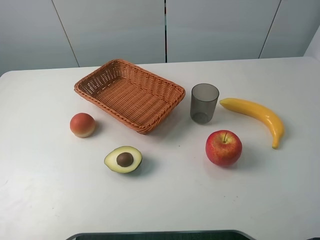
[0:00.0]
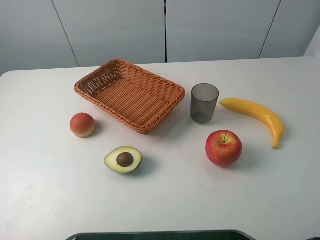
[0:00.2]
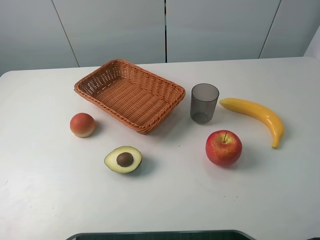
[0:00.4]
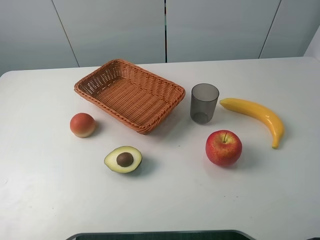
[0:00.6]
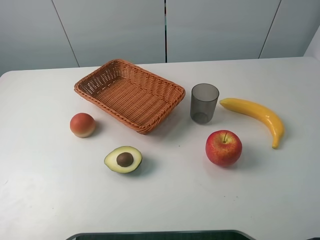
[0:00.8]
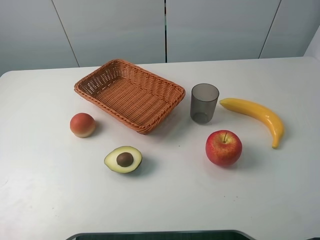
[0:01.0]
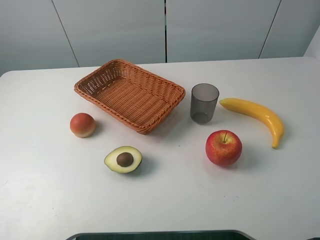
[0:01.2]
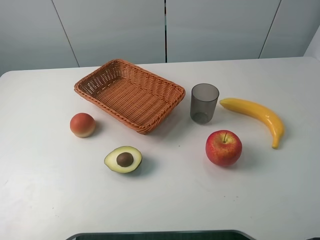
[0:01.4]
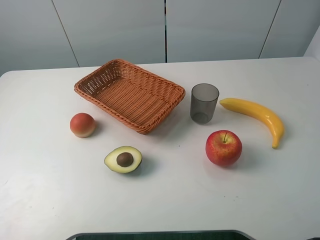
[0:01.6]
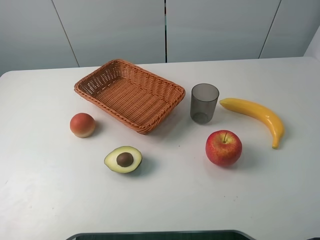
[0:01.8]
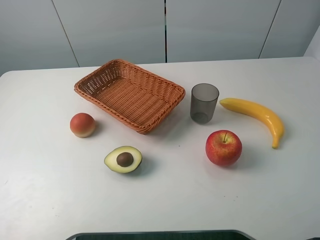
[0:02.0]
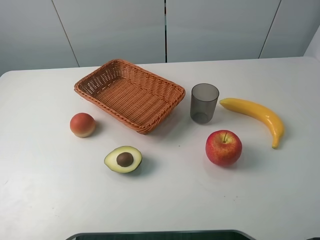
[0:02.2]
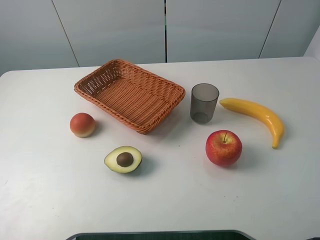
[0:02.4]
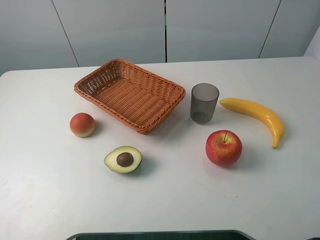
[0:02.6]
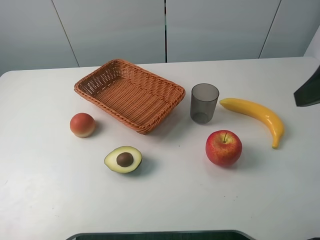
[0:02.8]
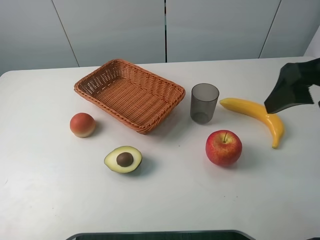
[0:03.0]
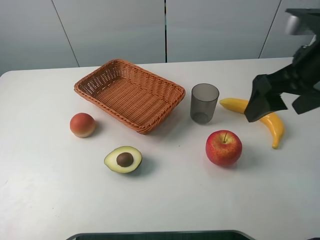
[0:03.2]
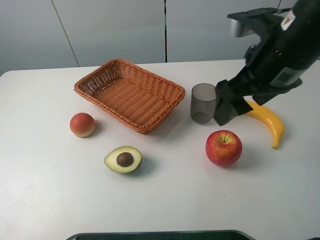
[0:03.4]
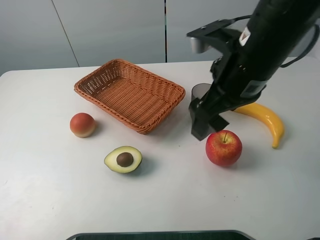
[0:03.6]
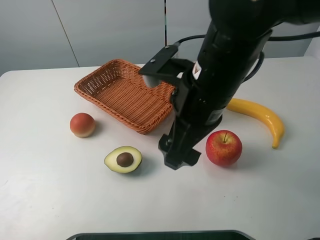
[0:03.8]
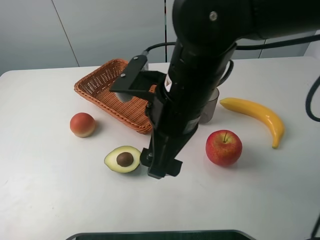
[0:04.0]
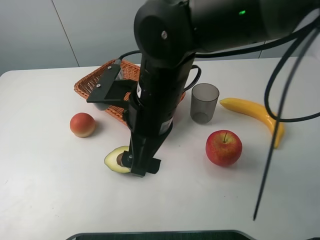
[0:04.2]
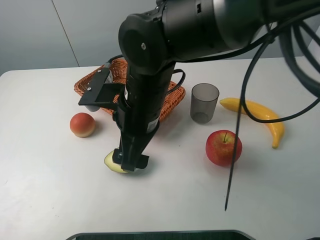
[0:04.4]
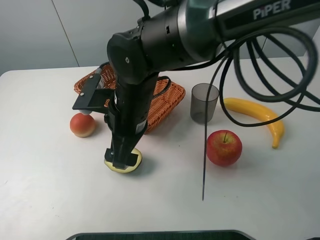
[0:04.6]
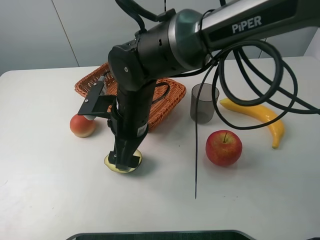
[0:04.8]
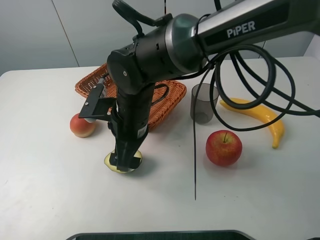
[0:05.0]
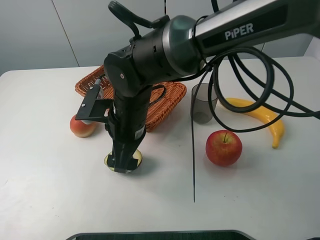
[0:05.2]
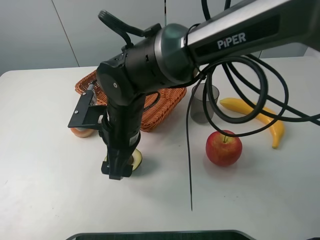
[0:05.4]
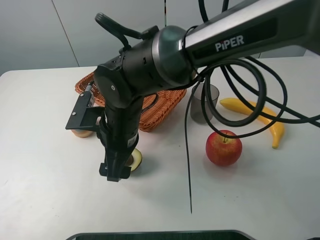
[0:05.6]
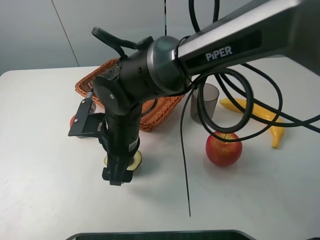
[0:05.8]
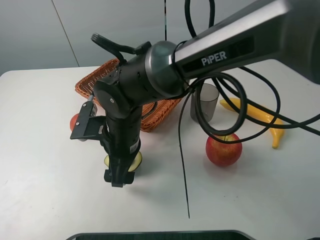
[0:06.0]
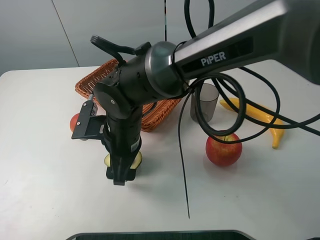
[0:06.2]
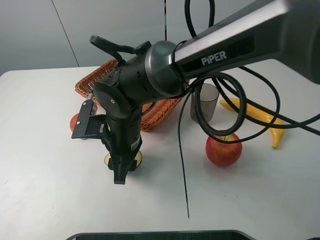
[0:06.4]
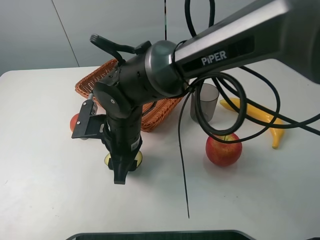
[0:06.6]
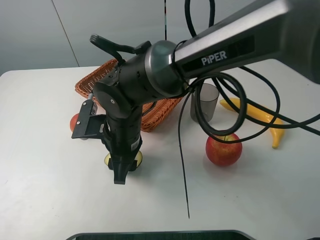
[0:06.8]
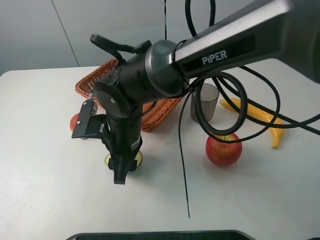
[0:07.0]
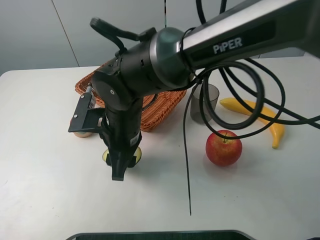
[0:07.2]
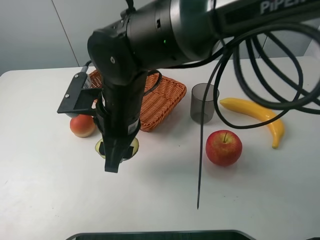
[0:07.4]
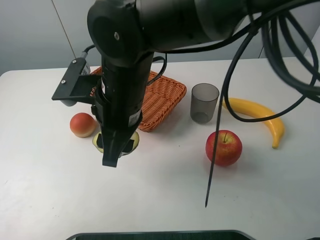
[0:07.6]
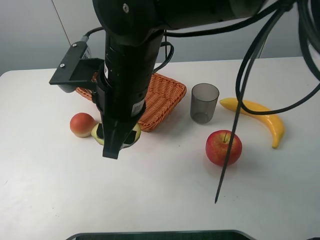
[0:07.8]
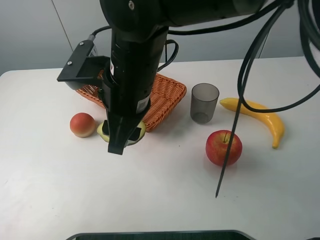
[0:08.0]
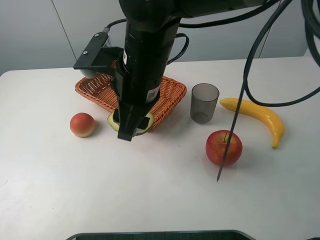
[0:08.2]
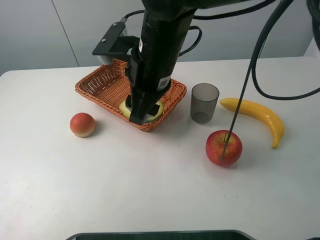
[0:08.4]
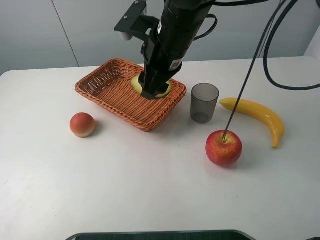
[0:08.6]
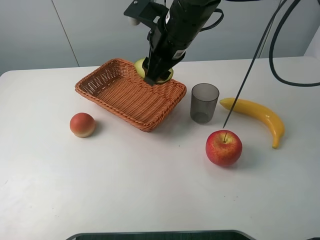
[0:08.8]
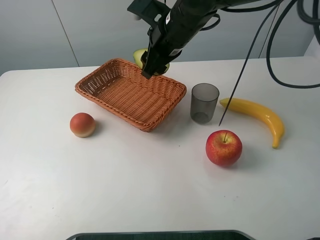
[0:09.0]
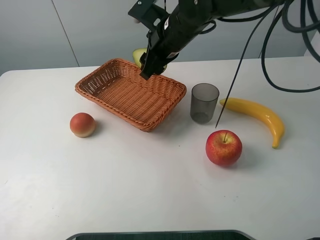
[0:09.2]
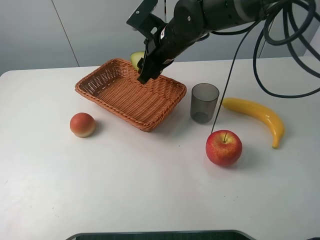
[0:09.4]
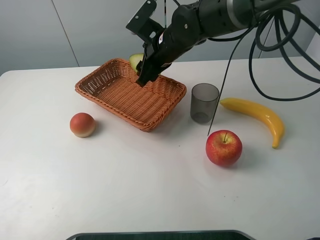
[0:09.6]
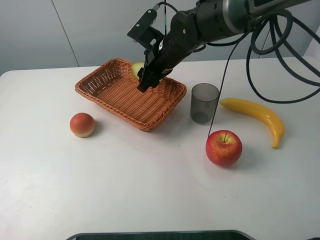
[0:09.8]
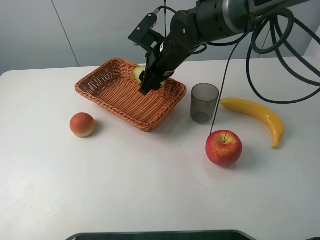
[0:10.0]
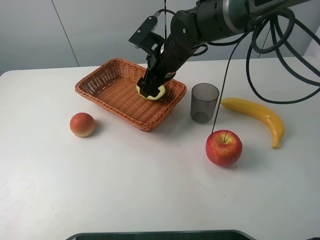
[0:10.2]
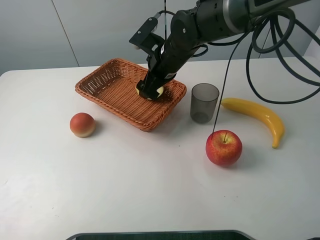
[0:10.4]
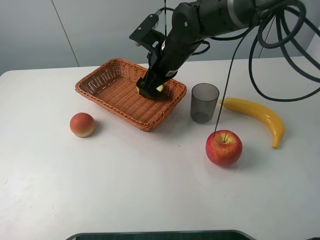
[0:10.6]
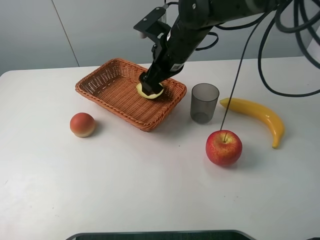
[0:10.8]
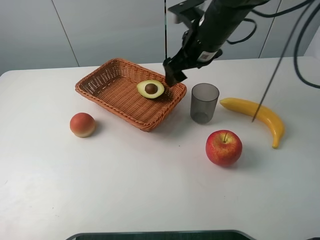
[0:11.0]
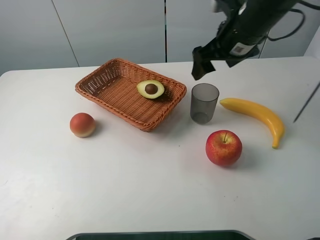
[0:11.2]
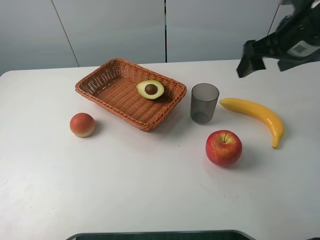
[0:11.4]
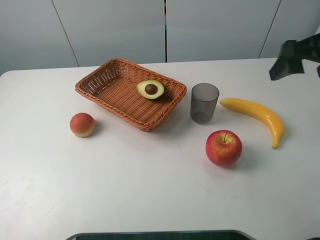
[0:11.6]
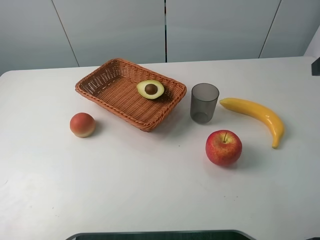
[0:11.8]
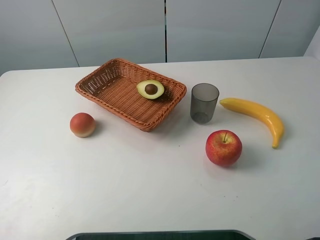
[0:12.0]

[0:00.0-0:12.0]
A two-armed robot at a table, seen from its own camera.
Task of the whole recording: randomly pick up an item from the table and put it in the basket.
Step, 0.0 to 6.6 s: Grasp the avocado with the right gripper.
Step, 6.8 to 10.8 s: Place the avocado into the basket with the right gripper.
0.0 to 1.6 s: Neither gripper changes place.
1.6 to 3.0 s: The right gripper heads forward, covering approximately 20 cm.
3.0 to 4.4 s: The right gripper goes about 25 cm to the left.
4.4 to 6.0 s: The right gripper travels downward by approximately 5 cm.
6.0 to 7.6 s: The right gripper is displaced upward by roughly 10 cm, and closes.
7.6 to 9.0 s: The right gripper shifts some 15 cm forward and to the right.
9.0 to 10.4 s: The right gripper heads downward, covering roughly 5 cm, and opens its fingers.
10.4 to 12.0 s: The right gripper travels to the right, backward and upward by approximately 40 cm.

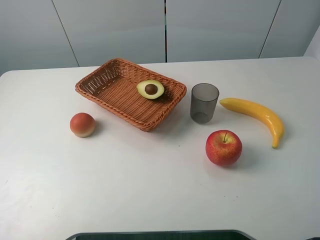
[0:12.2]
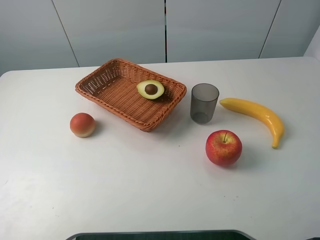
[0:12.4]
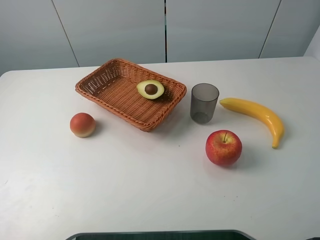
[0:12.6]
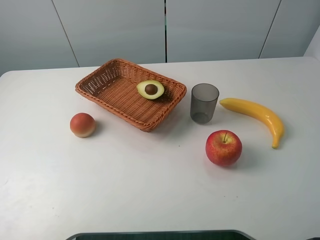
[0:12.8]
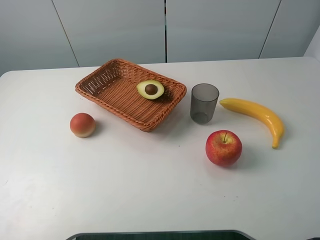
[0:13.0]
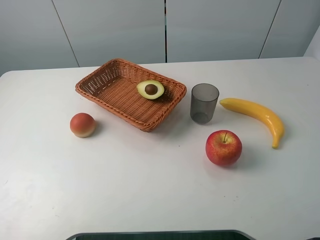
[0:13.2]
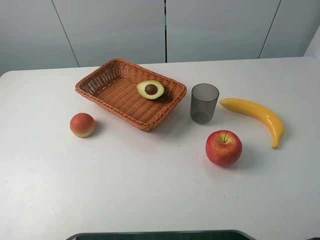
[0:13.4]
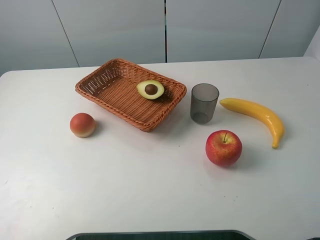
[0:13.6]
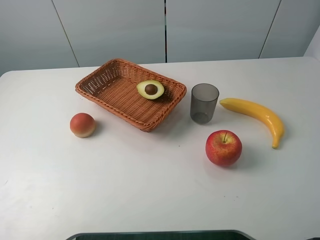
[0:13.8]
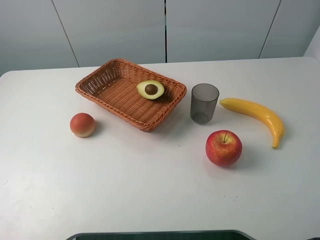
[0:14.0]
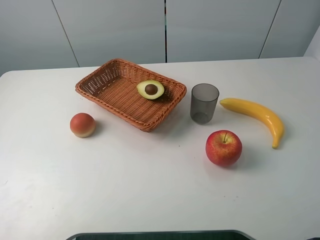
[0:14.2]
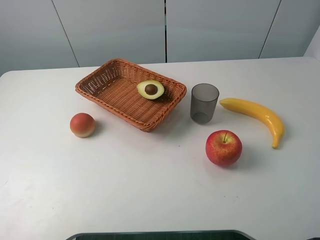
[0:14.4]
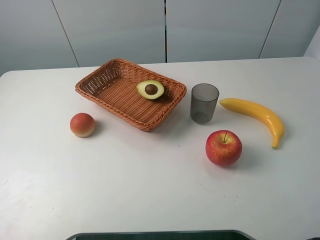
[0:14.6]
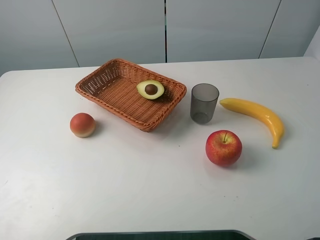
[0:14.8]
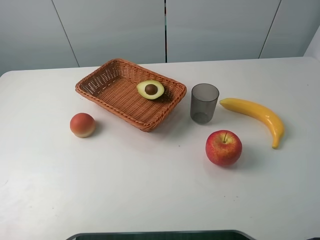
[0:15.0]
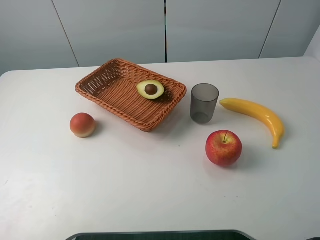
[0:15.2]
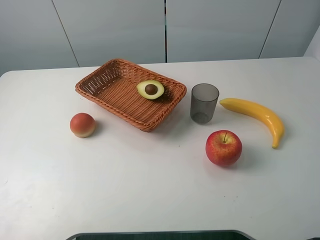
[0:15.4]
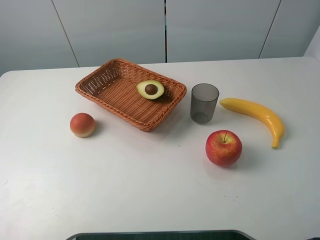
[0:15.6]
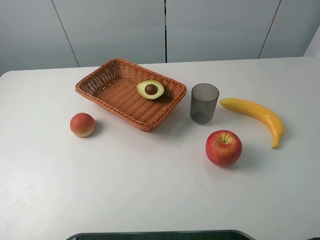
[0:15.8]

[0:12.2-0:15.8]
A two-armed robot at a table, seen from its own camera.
Task of the whole recording: randomly pick up an item from the table and put it in the basket.
14.0 to 15.8 s: Neither gripper changes place.

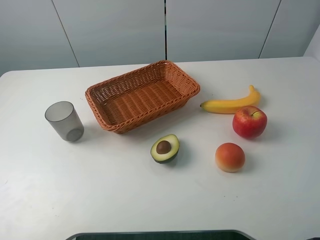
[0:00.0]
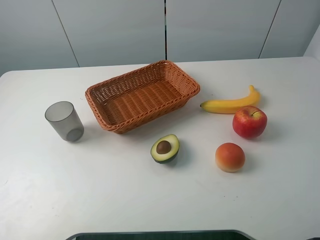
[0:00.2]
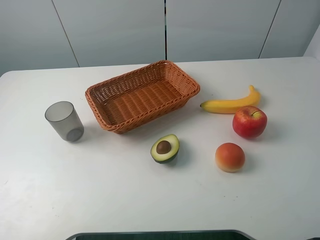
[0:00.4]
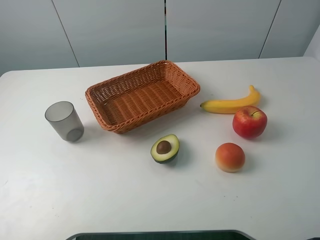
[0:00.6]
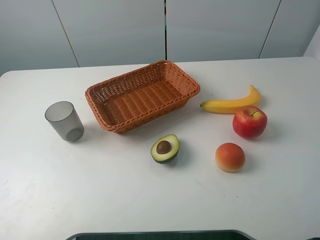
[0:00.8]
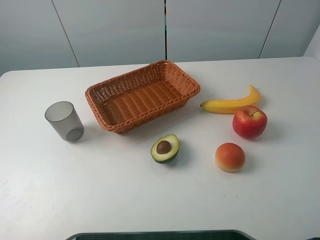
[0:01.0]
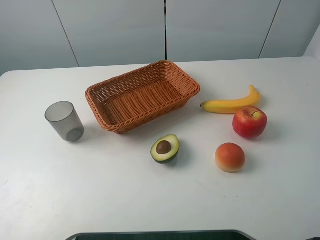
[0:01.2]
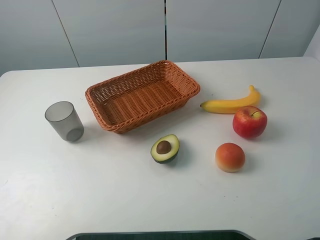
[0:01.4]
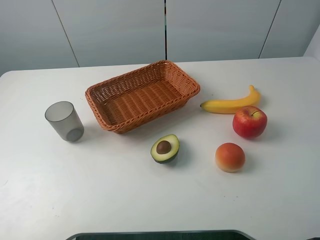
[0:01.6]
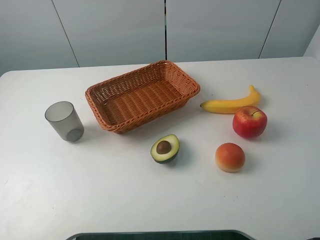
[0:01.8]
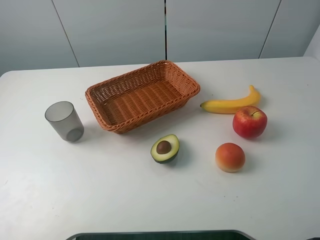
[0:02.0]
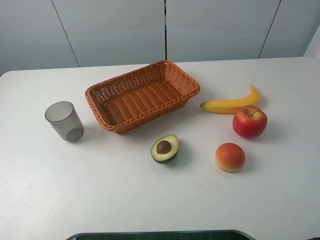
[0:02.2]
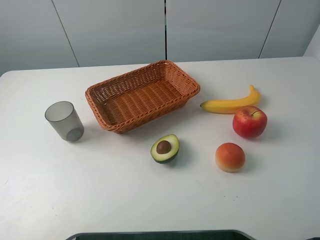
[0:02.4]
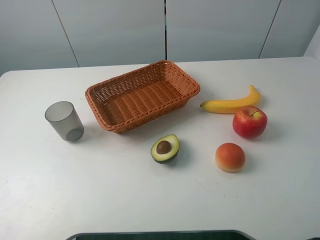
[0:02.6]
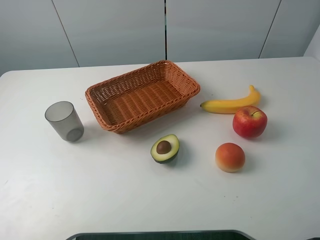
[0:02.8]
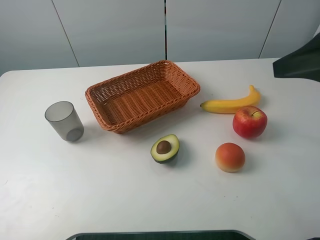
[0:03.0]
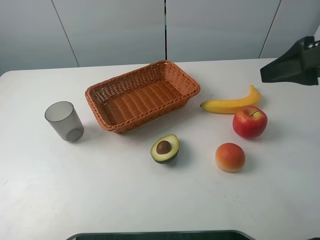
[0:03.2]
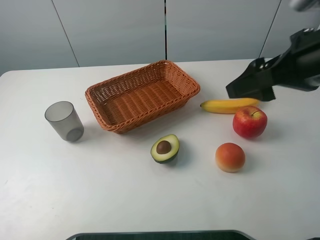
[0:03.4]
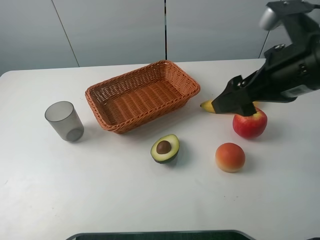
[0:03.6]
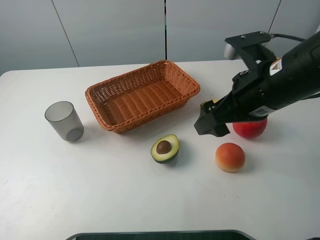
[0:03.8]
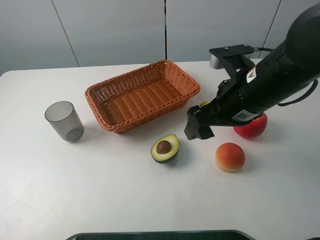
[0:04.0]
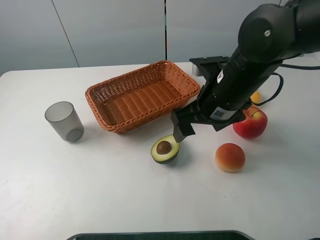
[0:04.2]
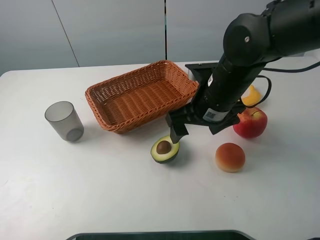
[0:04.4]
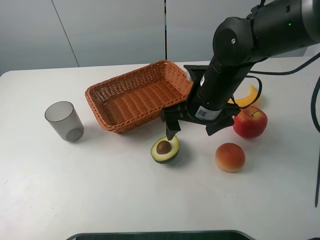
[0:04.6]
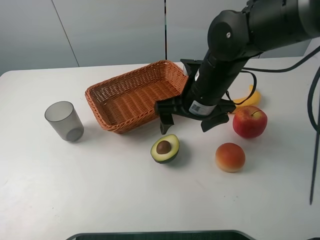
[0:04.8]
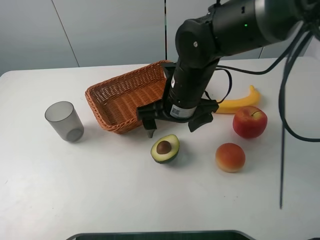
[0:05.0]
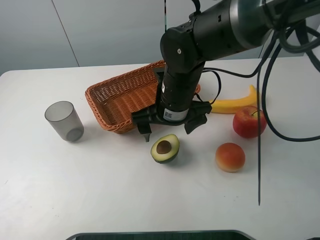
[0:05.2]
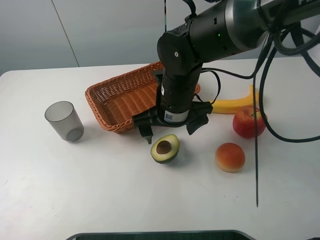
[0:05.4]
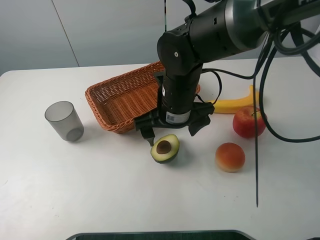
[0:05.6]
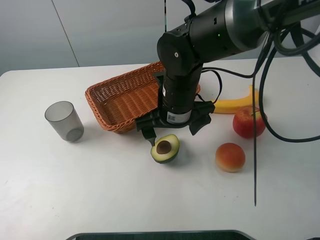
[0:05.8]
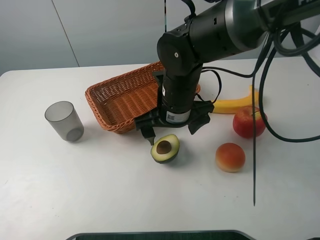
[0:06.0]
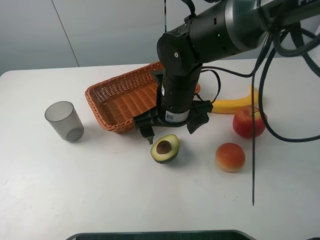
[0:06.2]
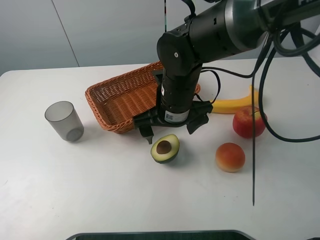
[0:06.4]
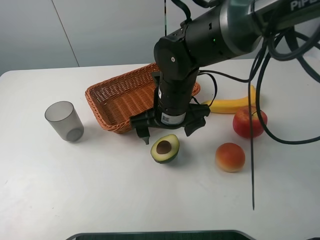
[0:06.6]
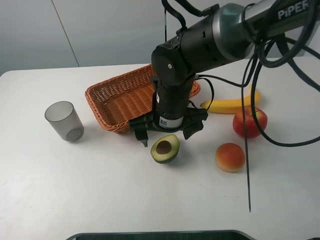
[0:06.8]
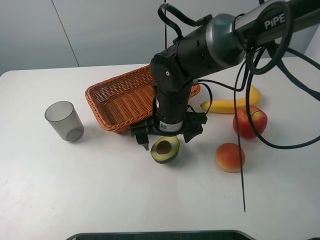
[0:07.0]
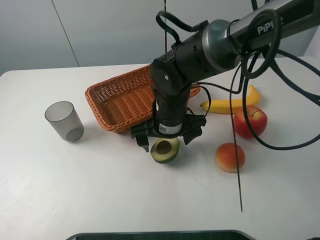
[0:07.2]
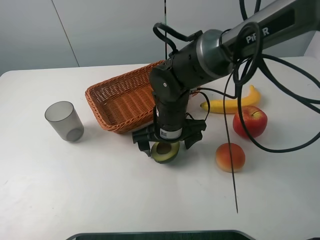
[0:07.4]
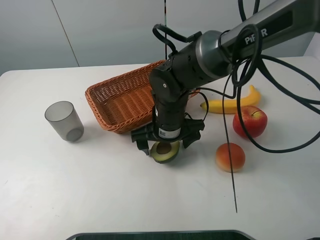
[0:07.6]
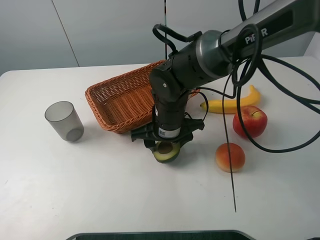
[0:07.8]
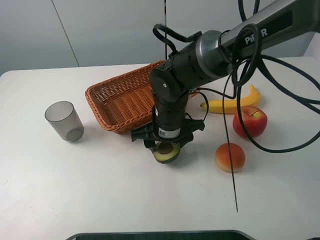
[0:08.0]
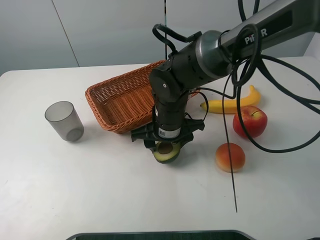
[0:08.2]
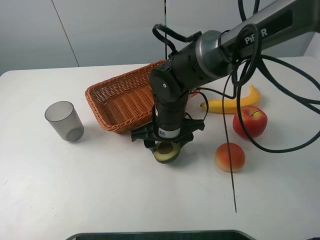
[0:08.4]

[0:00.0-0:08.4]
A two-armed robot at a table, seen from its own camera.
Task of the whole recording: randomly pick up an item from the table and put it in the basket.
Step, 0.0 to 8.4 s: Grasp the avocado with the right gripper.
2.8 to 4.2 s: The right gripper goes roughly 25 cm to the left, downward and forward.
4.2 to 5.6 s: The right gripper travels to the left by approximately 10 cm.
5.6 to 7.0 s: There are only small adjustments of the grippers.
7.0 to 8.4 s: The right gripper closes its fingers.
